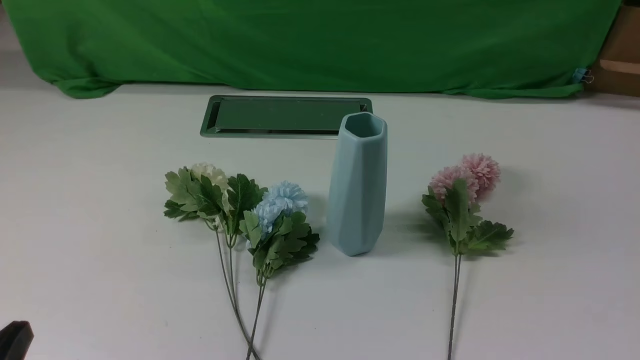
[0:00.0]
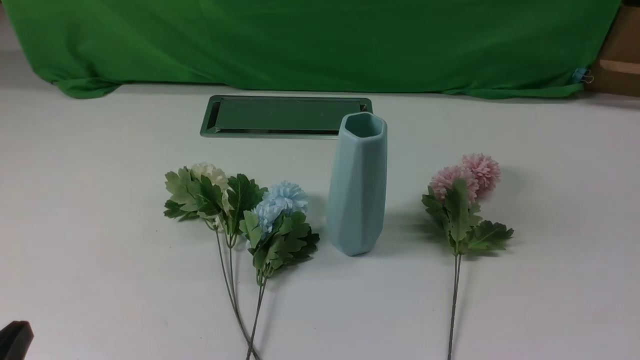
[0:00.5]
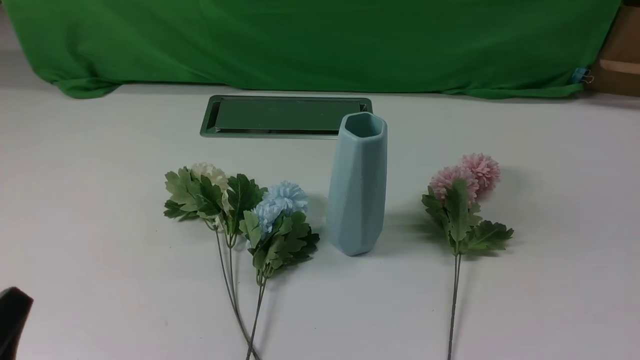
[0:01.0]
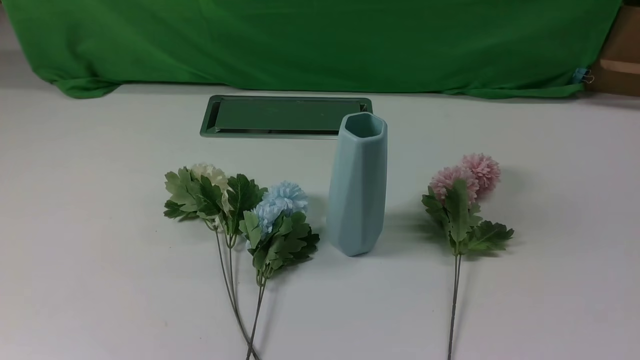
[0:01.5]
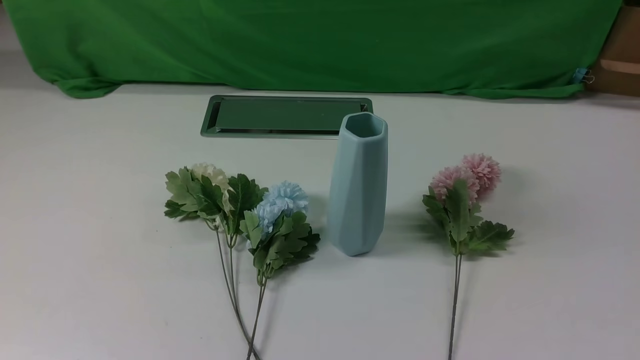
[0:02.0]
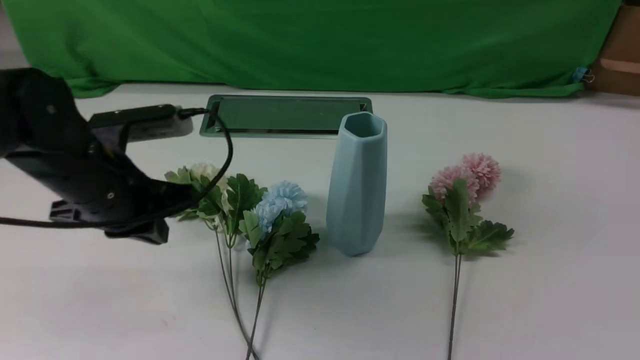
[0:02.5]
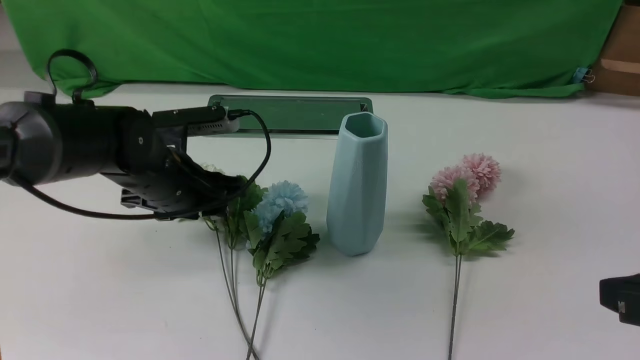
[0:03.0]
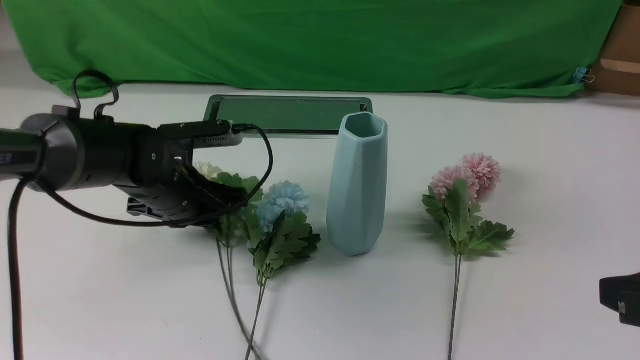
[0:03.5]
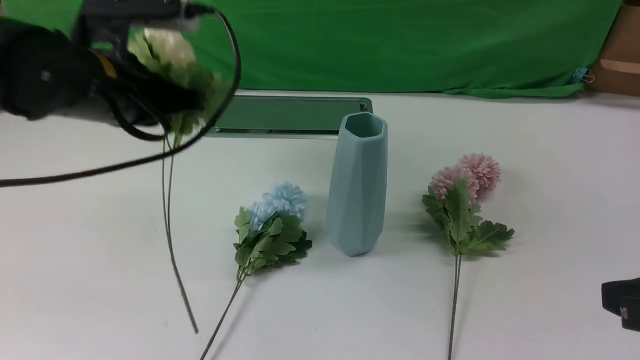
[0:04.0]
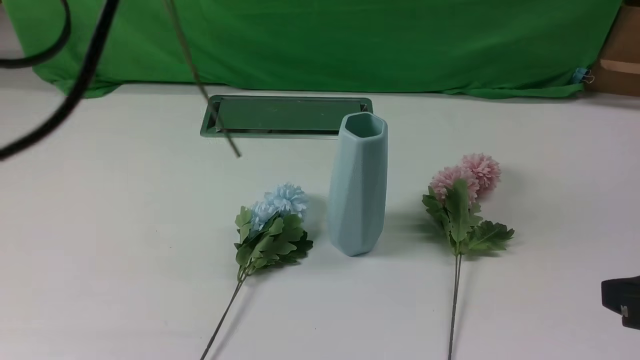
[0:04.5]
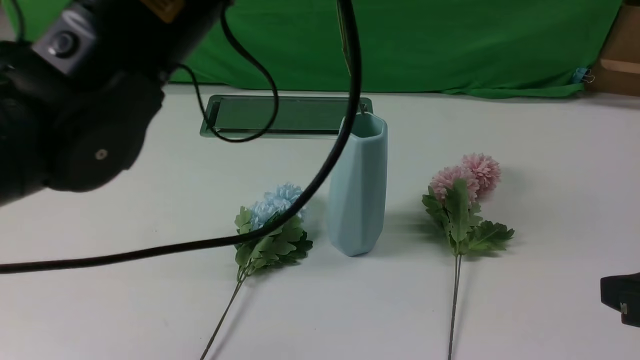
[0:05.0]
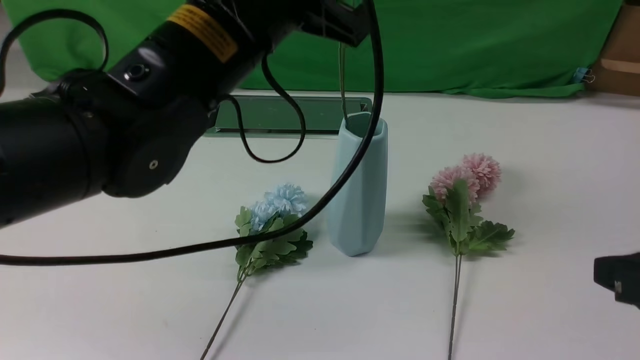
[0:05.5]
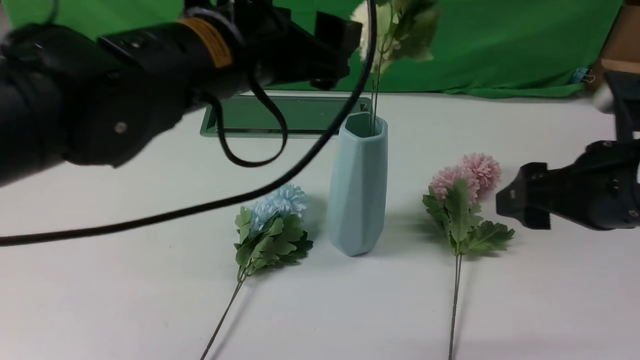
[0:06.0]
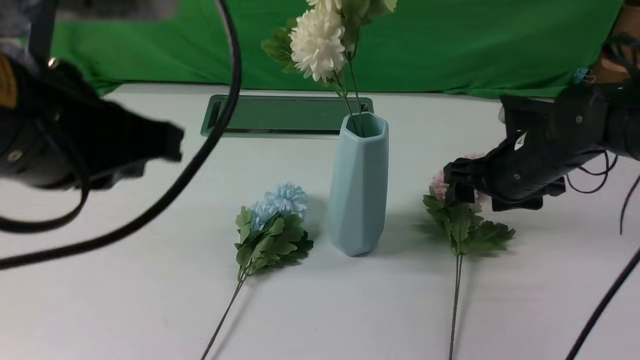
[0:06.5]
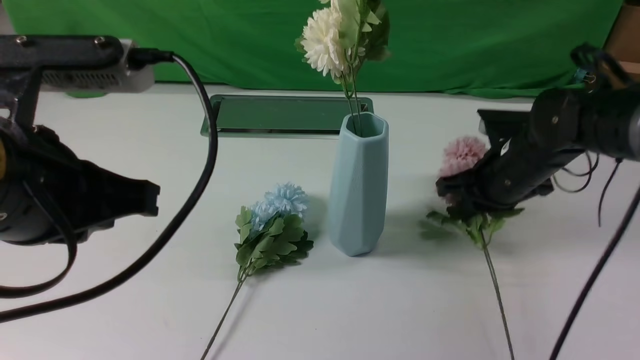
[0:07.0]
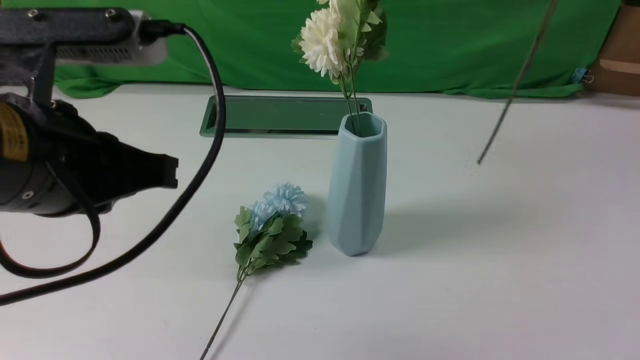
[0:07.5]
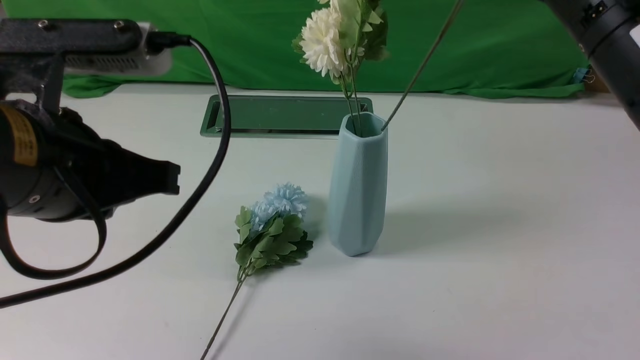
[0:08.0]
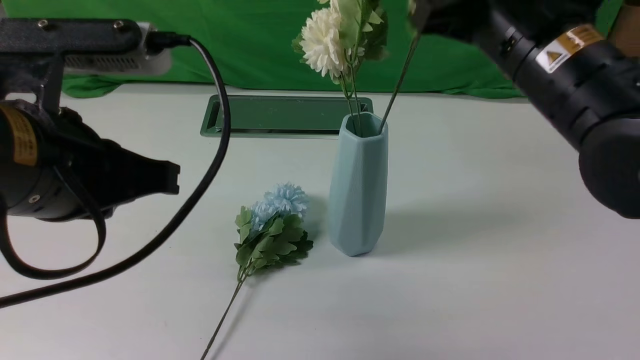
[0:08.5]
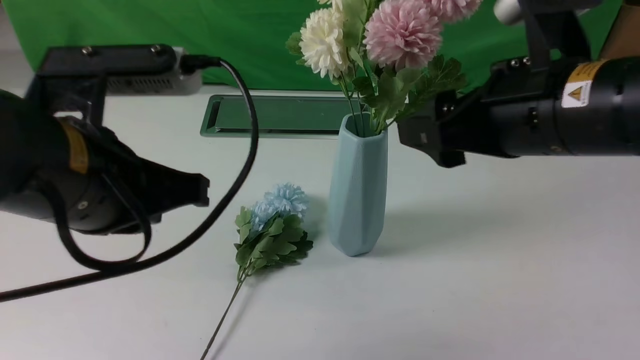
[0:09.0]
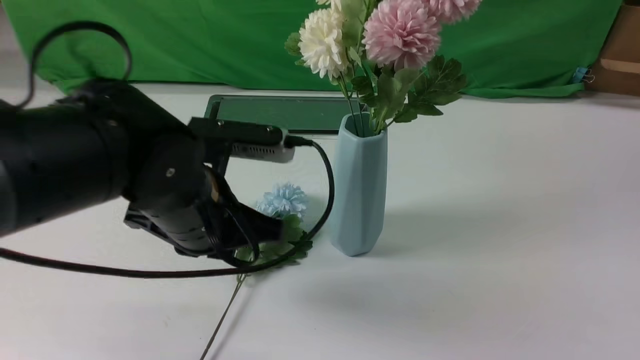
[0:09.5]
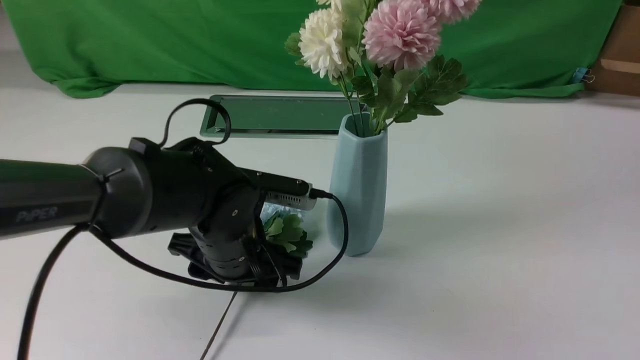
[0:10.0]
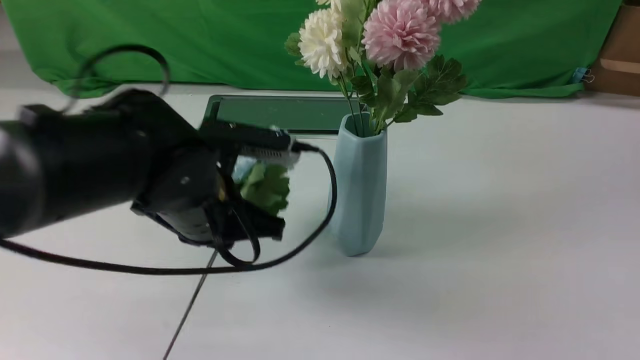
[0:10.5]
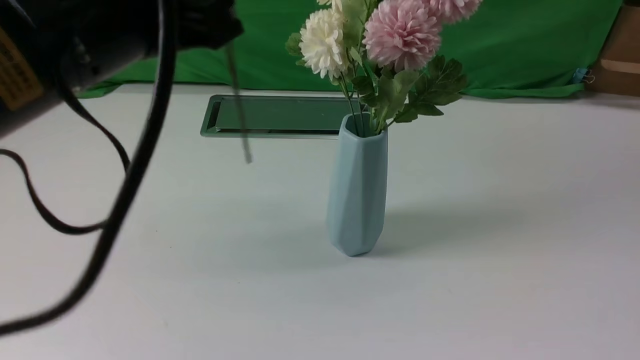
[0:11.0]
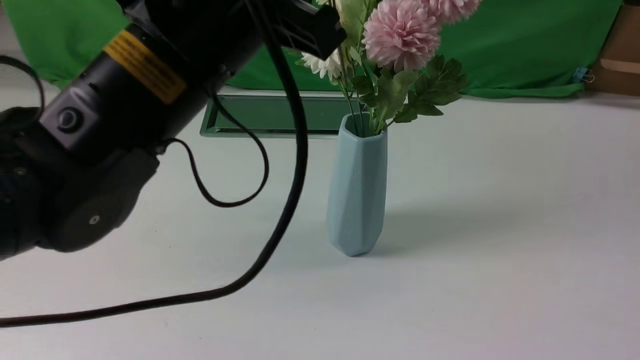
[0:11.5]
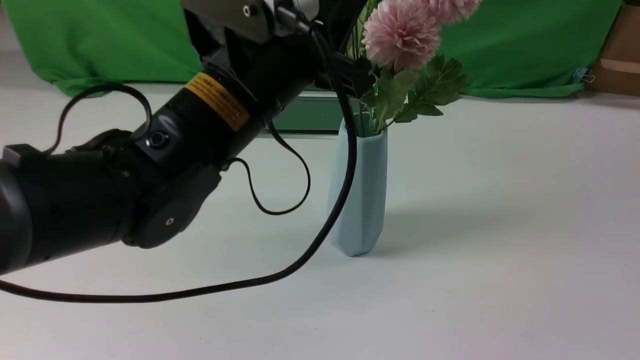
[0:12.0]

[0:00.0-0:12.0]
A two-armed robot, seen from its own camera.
Task of the whole recording: insert the flowers into the vase on the white table.
Step, 0:00.0 to 0:03.5: use the left arm to grab a bunch of fresh flowers.
Step, 0:04.0 to 0:06.0: use the left arm to insert the flowers into the vase.
Step, 0:07.0 to 0:08.5: use the right arm to insert the flowers into the vase.
Step, 0:09.5 to 0:10.0: use the left arm to grab a bunch of fresh flowers.
0:02.0 to 0:04.0: The left gripper moves forward, approximately 20 cm, and opens, then closes again, while the right gripper goes some 10 cm forward, upward and to the left.
0:04.0 to 0:06.0: The right gripper is displaced forward by roughly 10 cm, and opens, while the left gripper is displaced to the right and upward by roughly 10 cm, and opens up.
0:06.0 to 0:08.0: The left gripper moves backward and to the left, about 10 cm, and closes. Meanwhile the right gripper is displaced upward and to the left by about 10 cm, and closes its fingers.
0:08.0 to 0:10.0: The right gripper heads backward and to the right, covering some 15 cm, and opens its fingers, while the left gripper heads downward, forward and to the right, covering some 25 cm, and opens its fingers.
0:10.0 to 0:12.0: The left gripper goes about 15 cm upward, and closes up.

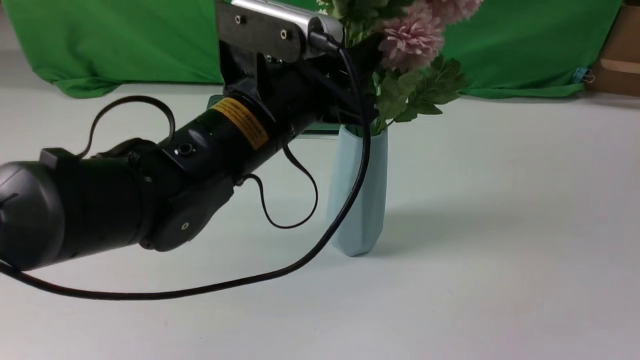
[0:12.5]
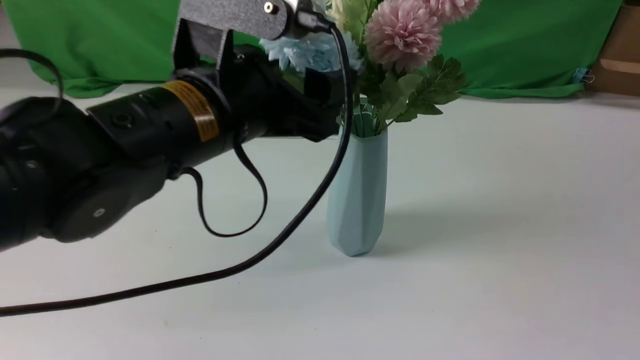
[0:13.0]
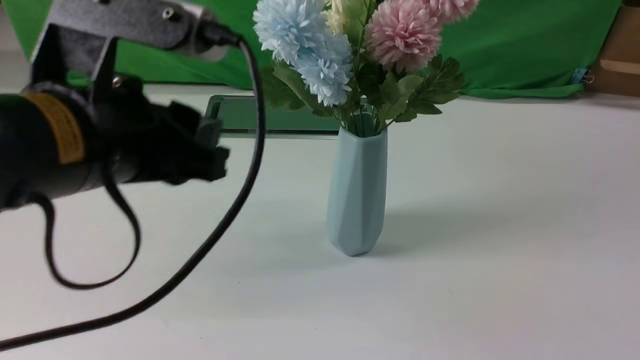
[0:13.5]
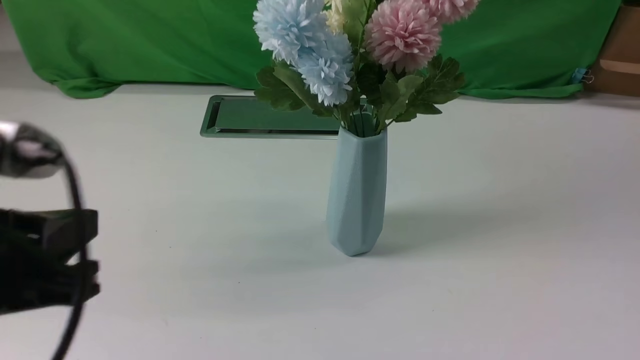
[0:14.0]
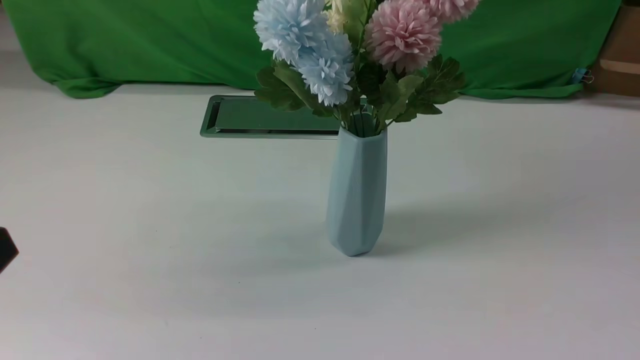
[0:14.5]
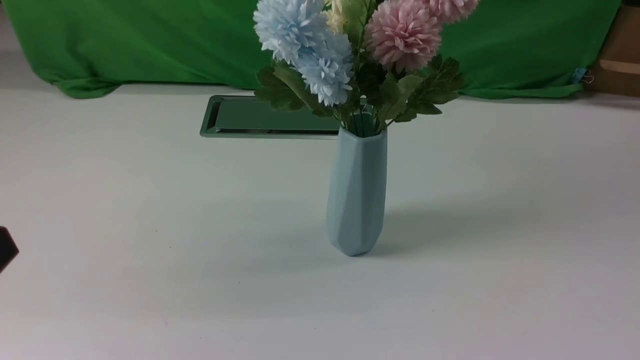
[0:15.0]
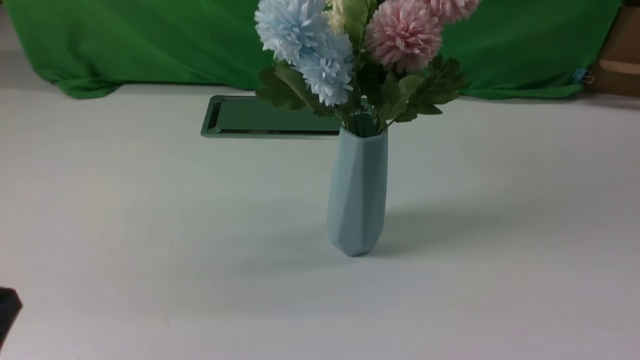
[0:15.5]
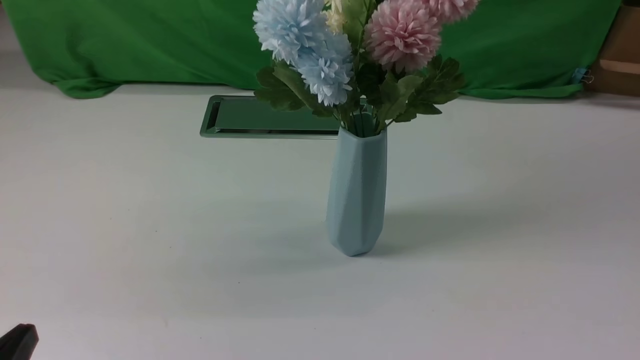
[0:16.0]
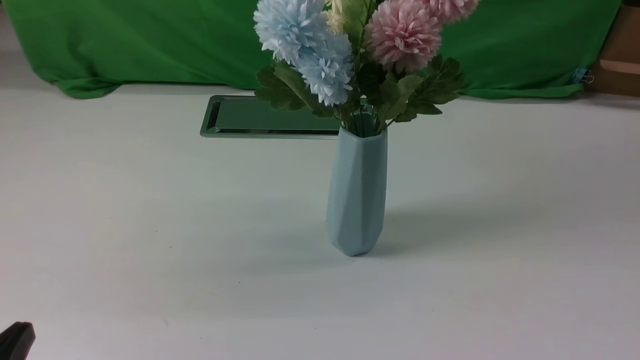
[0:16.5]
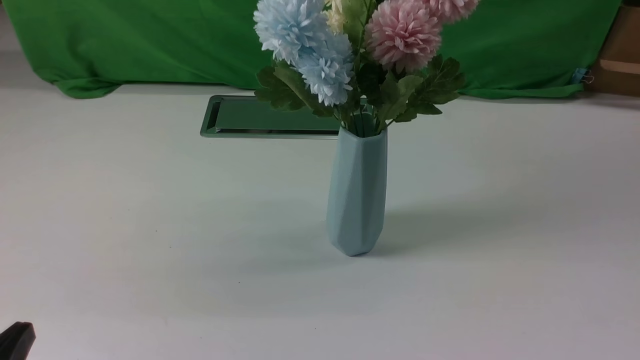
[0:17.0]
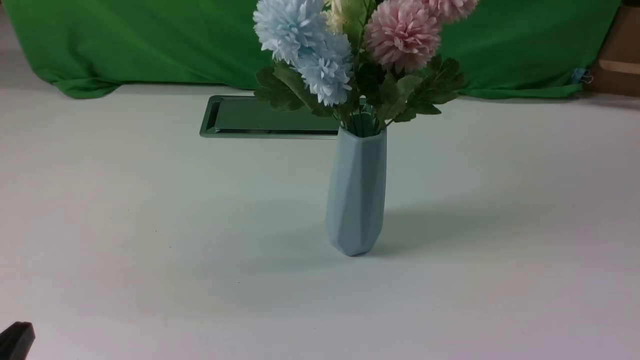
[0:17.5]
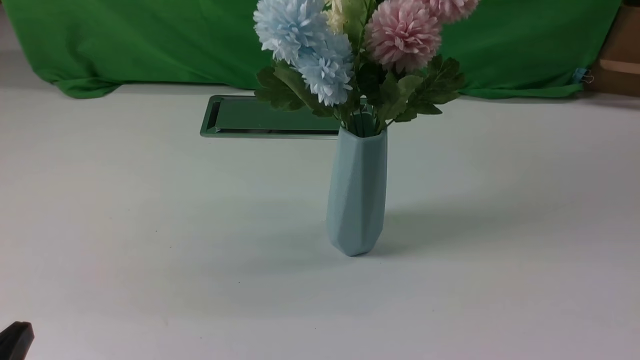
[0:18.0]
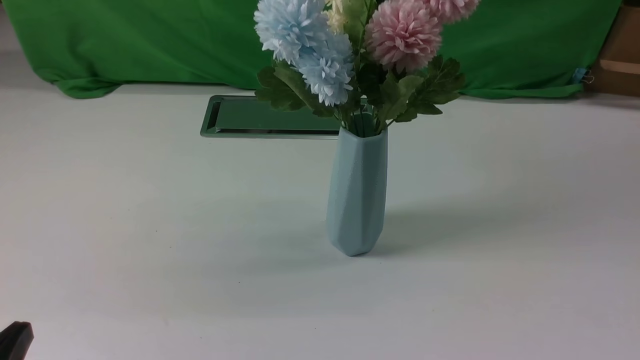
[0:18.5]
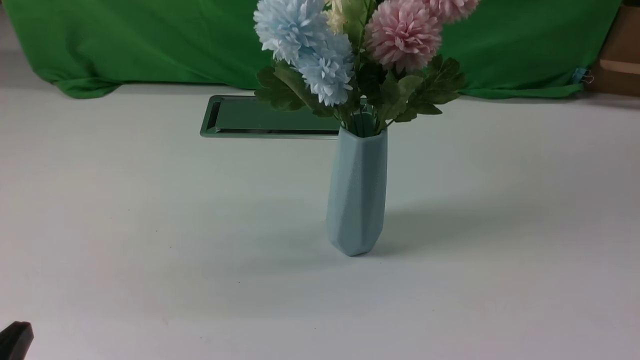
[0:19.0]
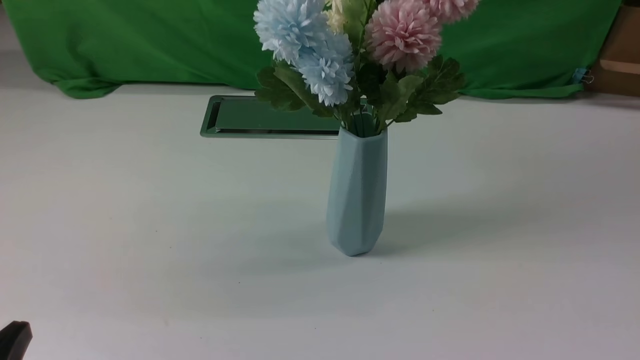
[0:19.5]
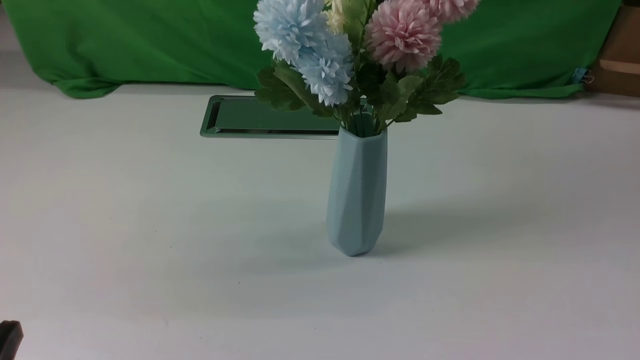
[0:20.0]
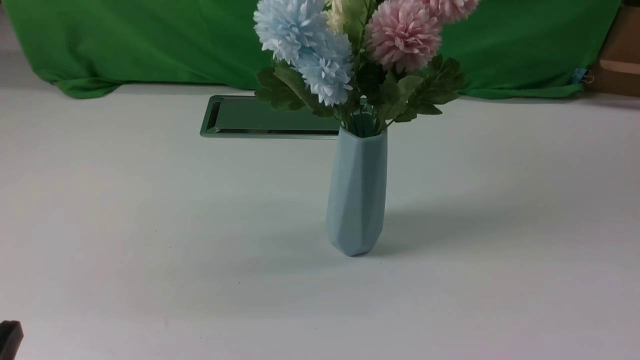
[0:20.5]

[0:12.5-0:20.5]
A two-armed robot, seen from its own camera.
Task of the whole recording: insert the flowers into the vase on the white table.
0:12.5 to 0:14.5: The right gripper moves backward and to the right, some 20 cm, and closes its fingers; the left gripper shifts approximately 30 cm backward and to the left, and closes.
0:14.5 to 0:16.5: The left gripper heads downward, covering about 15 cm.
0:18.5 to 0:20.5: Neither gripper changes place.
